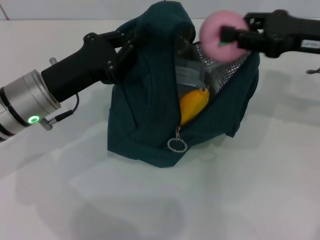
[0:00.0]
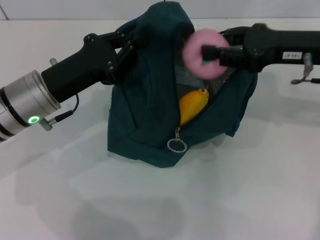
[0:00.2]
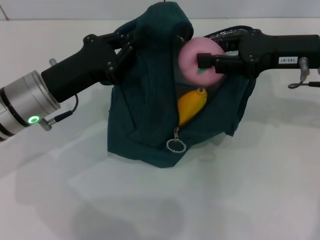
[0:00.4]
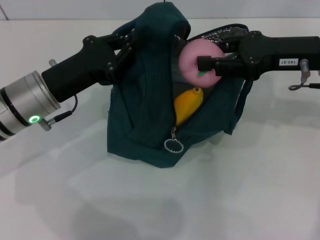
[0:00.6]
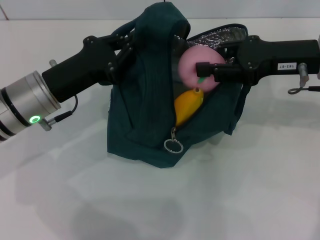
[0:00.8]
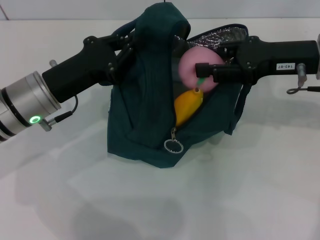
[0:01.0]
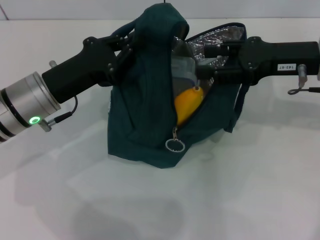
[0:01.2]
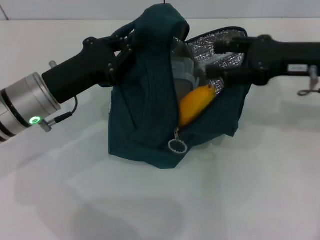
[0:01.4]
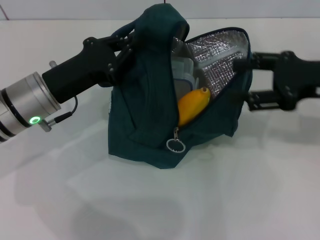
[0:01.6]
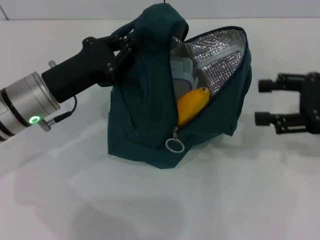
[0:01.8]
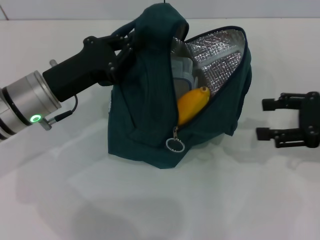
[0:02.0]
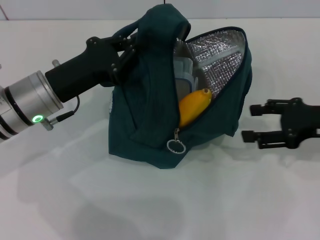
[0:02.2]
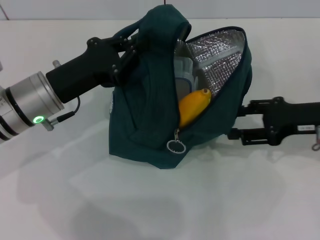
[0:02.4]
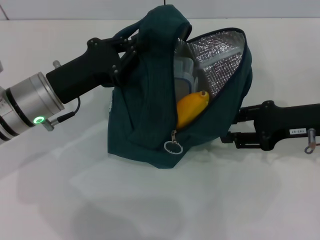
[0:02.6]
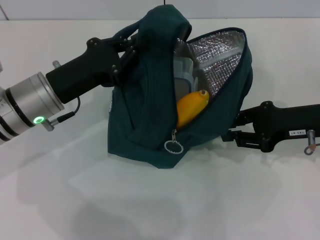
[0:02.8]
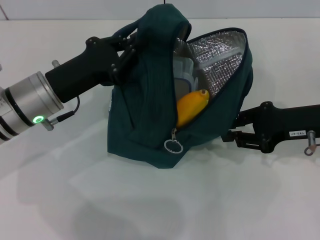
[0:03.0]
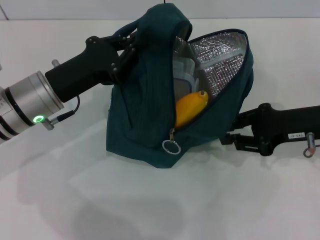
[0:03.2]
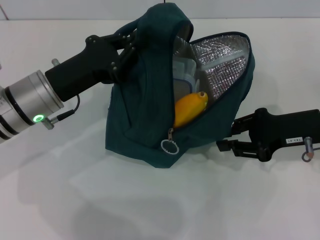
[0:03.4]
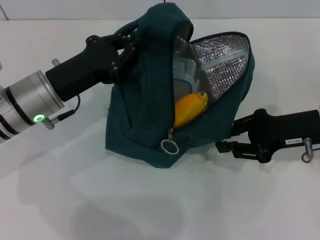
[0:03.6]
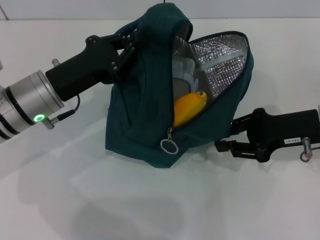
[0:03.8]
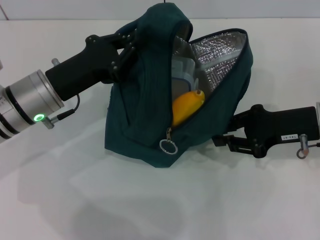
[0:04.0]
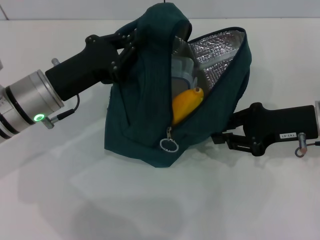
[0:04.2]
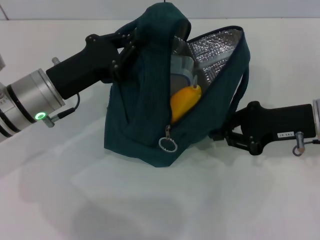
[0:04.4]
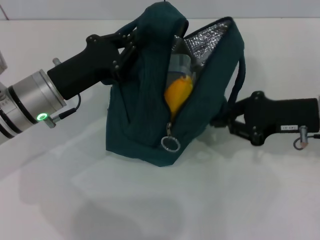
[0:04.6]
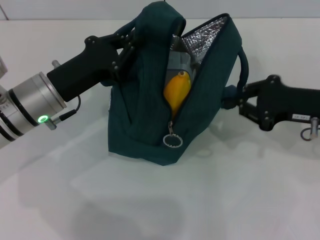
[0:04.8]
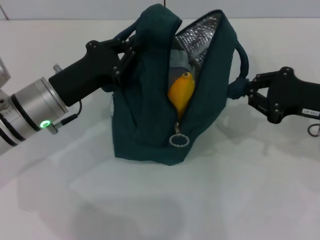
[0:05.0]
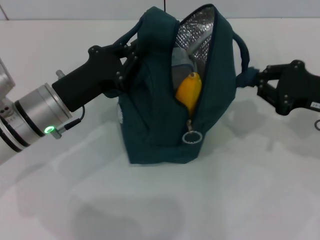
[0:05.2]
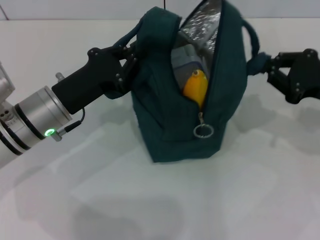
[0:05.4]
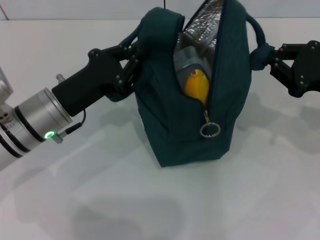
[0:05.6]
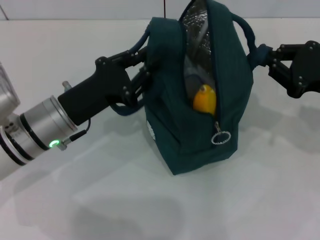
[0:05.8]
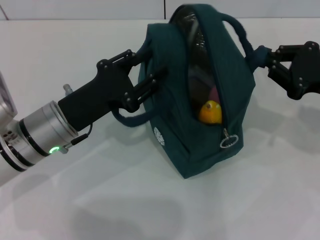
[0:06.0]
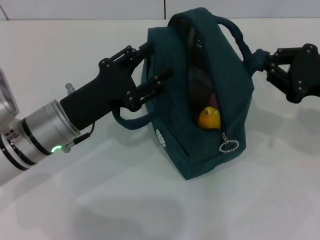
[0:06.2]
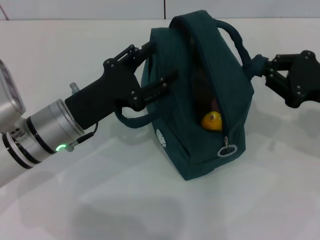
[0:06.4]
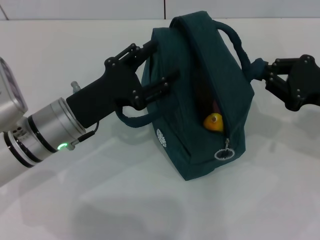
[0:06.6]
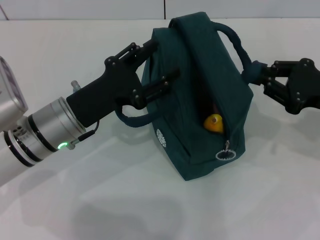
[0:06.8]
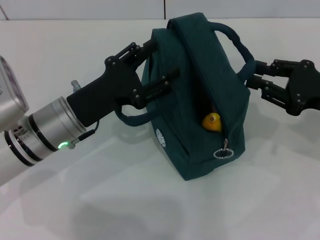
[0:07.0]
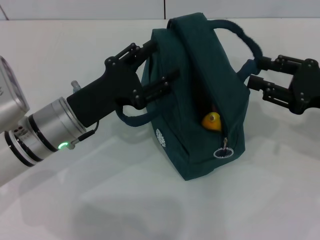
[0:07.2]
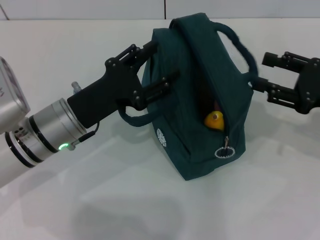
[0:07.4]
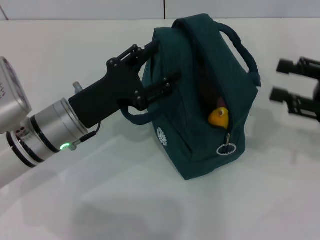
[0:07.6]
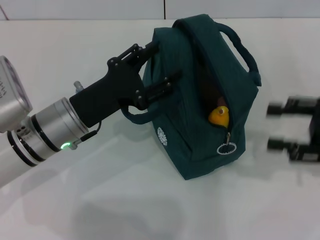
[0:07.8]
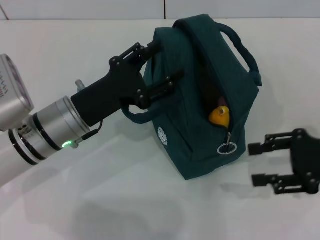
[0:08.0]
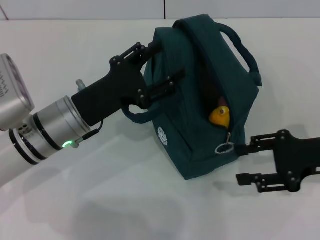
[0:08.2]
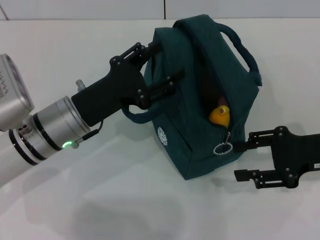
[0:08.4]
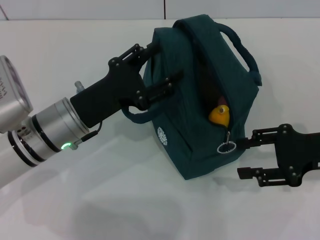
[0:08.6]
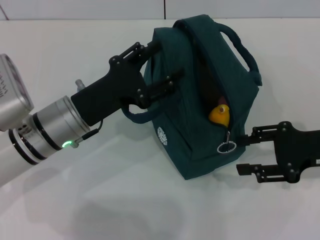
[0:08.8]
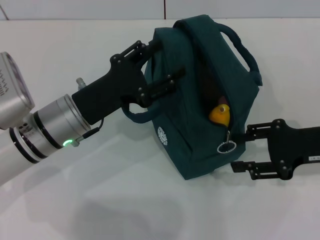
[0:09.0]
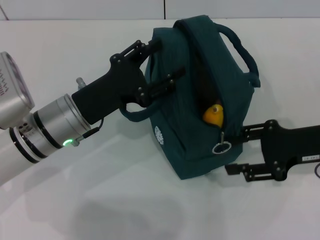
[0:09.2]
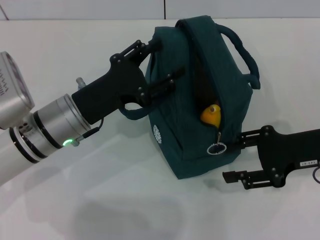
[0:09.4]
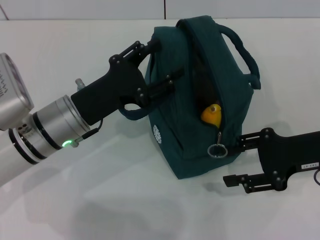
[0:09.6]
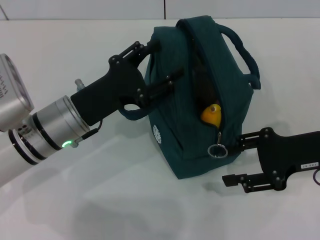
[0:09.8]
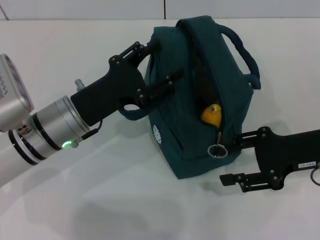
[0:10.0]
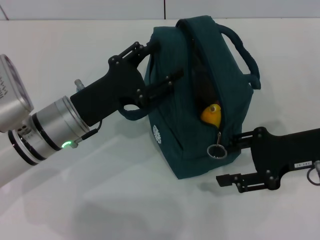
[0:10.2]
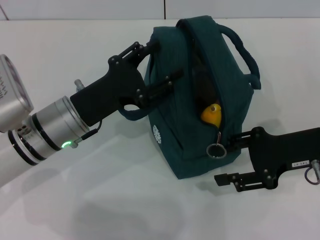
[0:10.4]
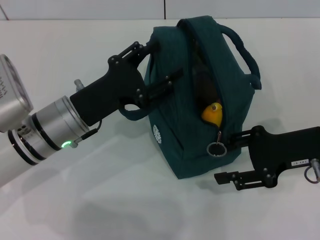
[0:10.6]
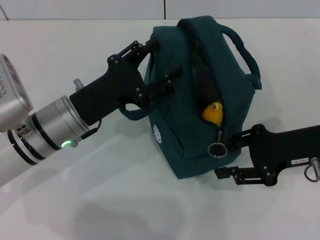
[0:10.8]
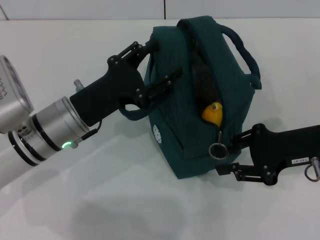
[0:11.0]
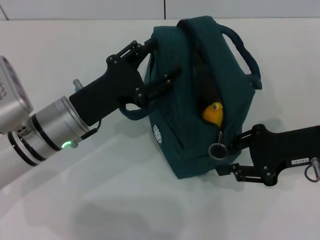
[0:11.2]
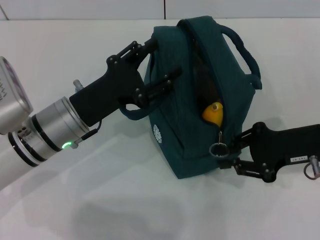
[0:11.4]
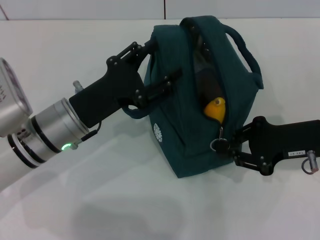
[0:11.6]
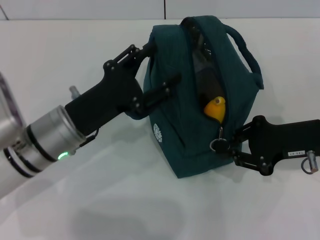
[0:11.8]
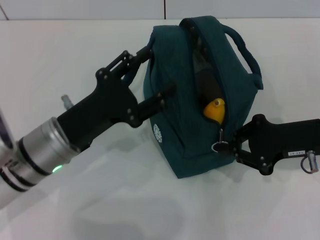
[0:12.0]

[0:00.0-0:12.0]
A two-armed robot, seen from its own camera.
Step, 0:01.2 to 0:07.0: Hold the lunch bag with your right hand.
Step, 0:07.2 to 0:11.8: Hold the lunch bag with your left hand.
0:00.0 to 0:01.6: The right gripper opens its fingers.
0:01.6 to 0:03.0: The right gripper moves downward, some 5 cm, and closes.
0:03.0 to 0:04.4: The grippers move only a little.
0:04.4 to 0:06.0: The right gripper moves to the right, some 5 cm.
0:06.0 to 0:07.6: The right gripper opens up; the left gripper opens up.
0:07.6 to 0:09.0: The right gripper moves about 5 cm.
0:09.0 to 0:10.4: The grippers stay close to where they were, moving slightly.
0:10.4 to 0:12.0: The right gripper closes its fingers.

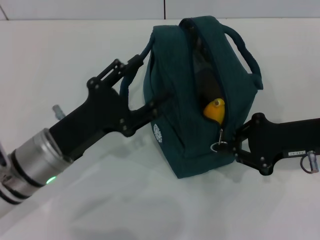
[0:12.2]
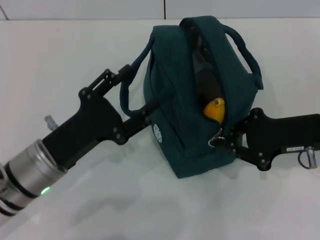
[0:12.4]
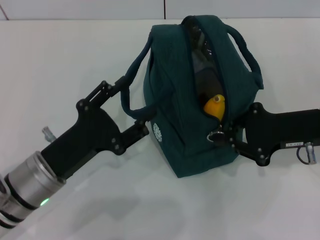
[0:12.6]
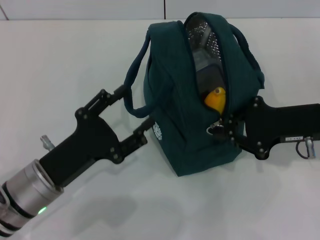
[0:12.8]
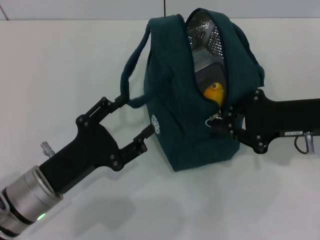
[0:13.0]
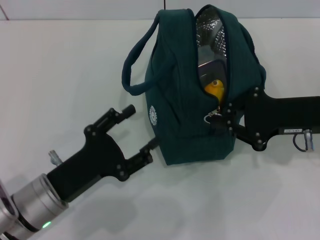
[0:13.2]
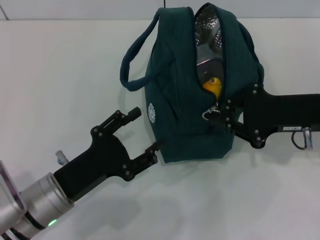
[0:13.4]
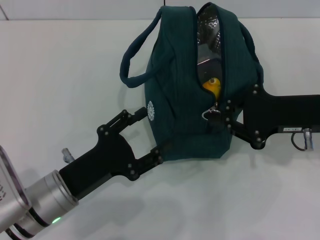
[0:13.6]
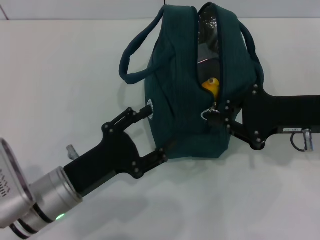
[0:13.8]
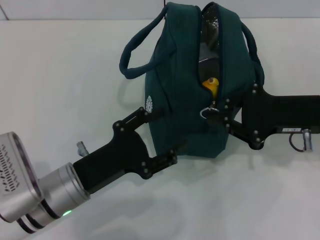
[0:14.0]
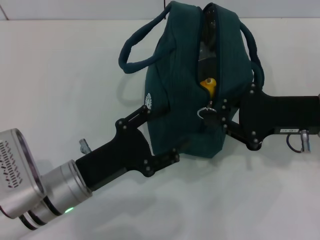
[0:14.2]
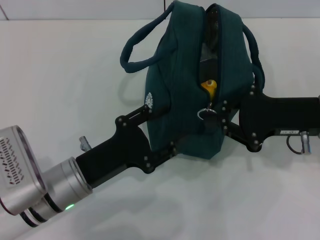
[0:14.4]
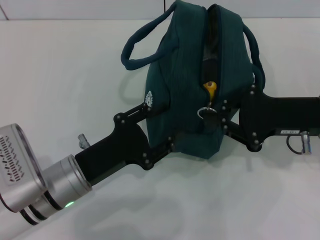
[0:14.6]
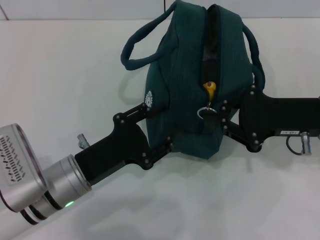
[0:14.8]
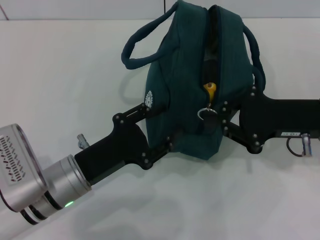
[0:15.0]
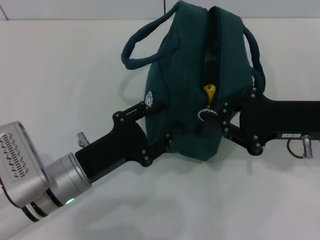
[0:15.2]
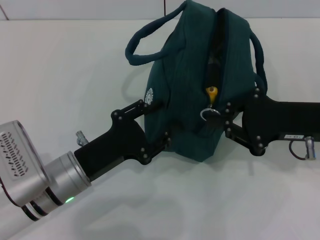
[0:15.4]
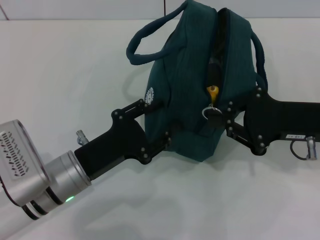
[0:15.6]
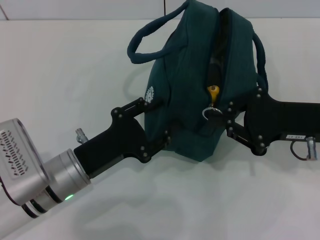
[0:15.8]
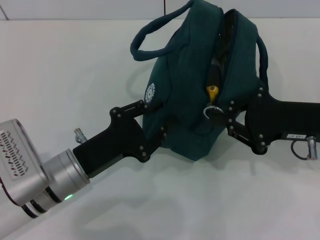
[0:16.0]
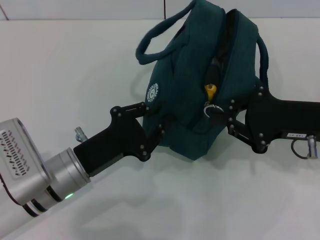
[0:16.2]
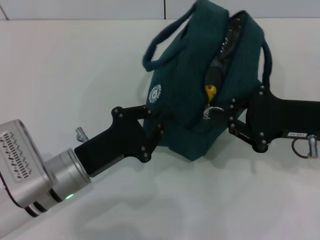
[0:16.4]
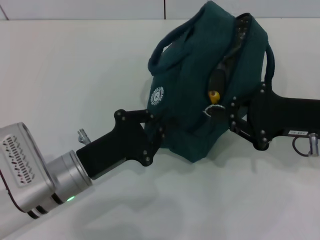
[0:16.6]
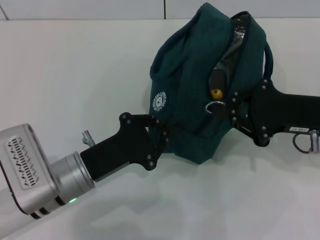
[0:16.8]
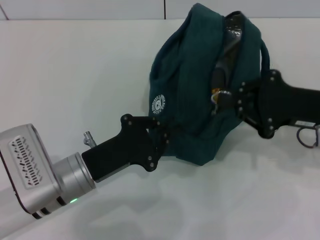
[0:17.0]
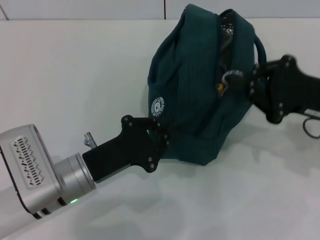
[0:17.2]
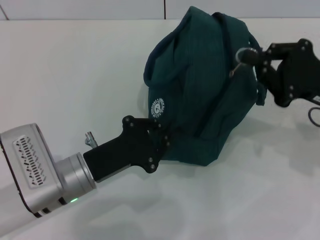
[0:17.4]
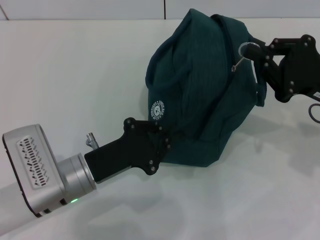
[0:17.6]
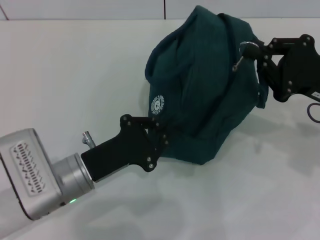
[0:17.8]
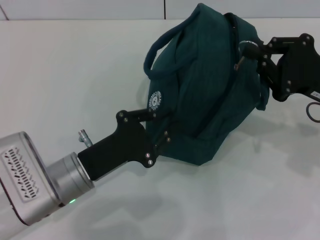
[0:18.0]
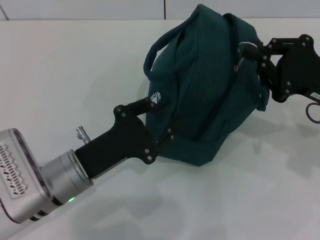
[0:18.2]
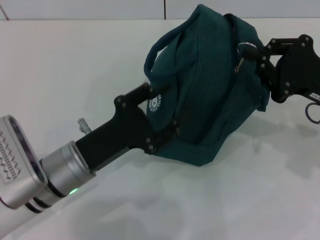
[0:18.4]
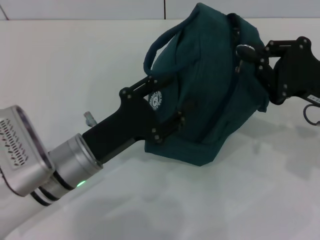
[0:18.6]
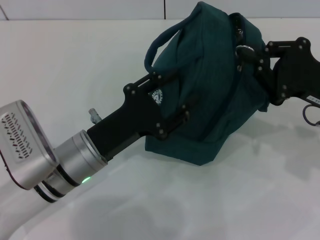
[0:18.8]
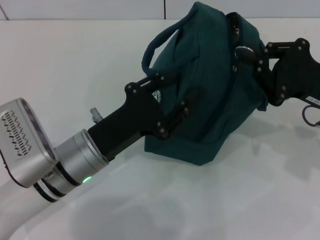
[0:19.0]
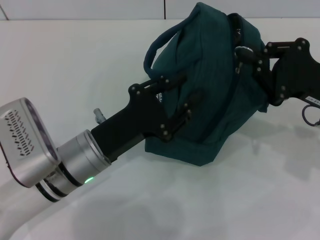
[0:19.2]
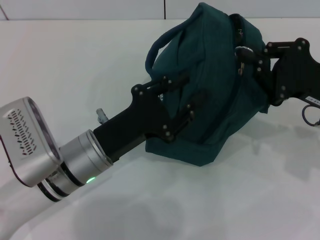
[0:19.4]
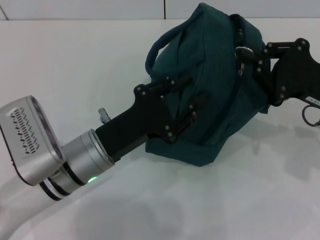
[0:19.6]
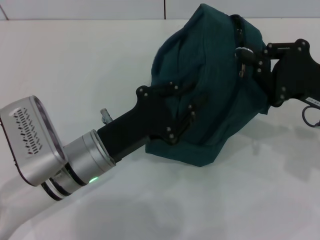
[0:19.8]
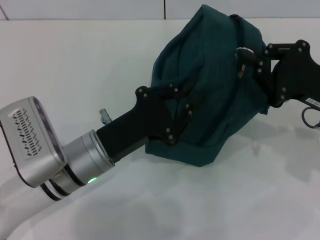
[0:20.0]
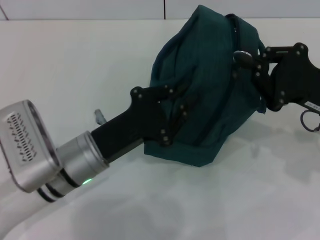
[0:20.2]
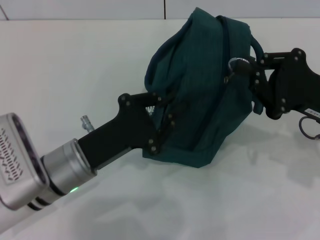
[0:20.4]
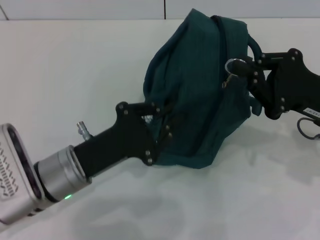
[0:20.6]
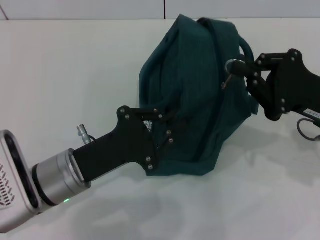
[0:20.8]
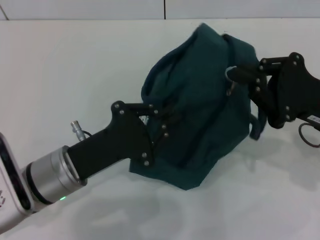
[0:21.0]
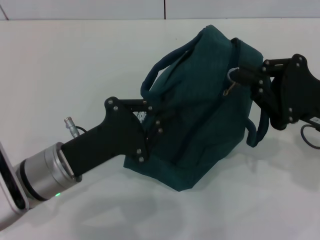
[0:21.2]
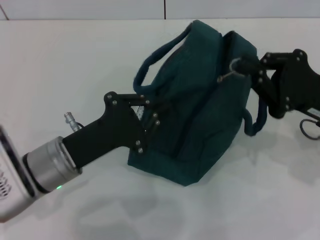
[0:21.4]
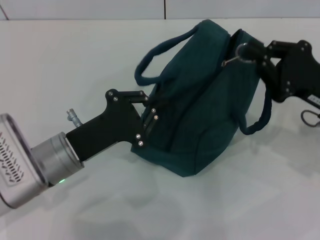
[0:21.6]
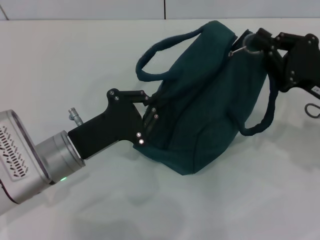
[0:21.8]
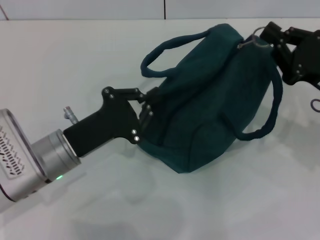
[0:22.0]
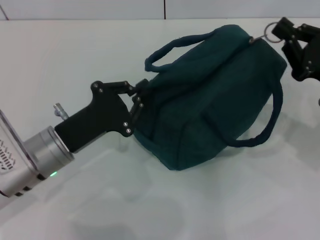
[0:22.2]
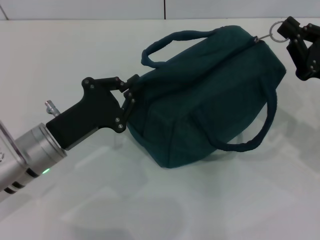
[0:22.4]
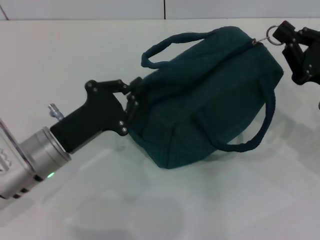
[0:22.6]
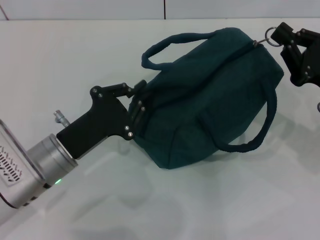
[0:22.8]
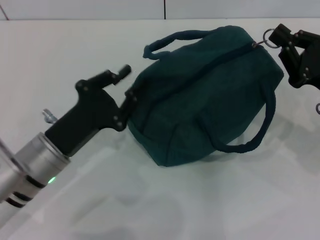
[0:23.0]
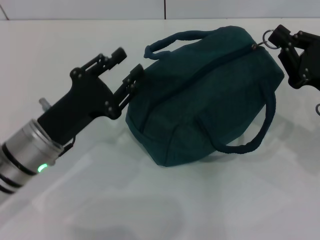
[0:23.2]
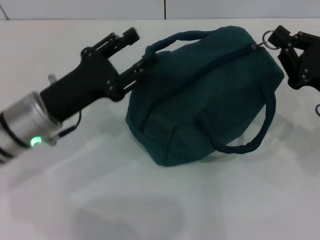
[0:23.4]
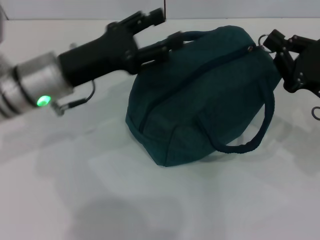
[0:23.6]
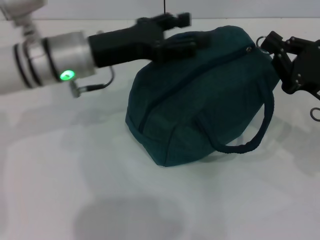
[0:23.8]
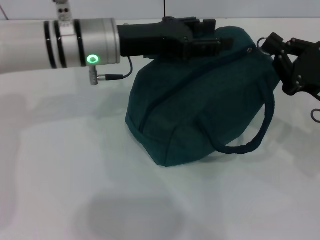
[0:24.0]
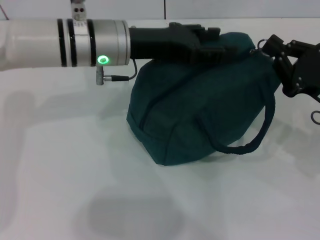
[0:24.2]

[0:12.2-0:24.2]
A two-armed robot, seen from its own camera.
0:12.2 to 0:13.8: The left gripper moves some 5 cm.
0:13.8 to 0:15.2: There are only small adjustments of the grippers.
0:15.2 to 0:16.6: The left gripper closes its fingers.
0:18.2 to 0:19.8: The grippers move only a little.
0:19.8 to 0:21.2: The left gripper closes its fingers.
0:22.6 to 0:24.2: The left gripper shifts about 20 cm forward, upward and to the right, and opens up.
